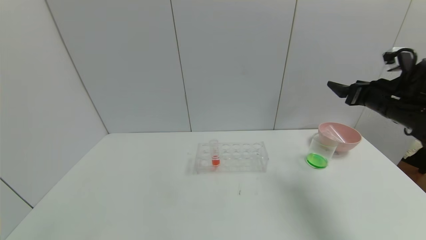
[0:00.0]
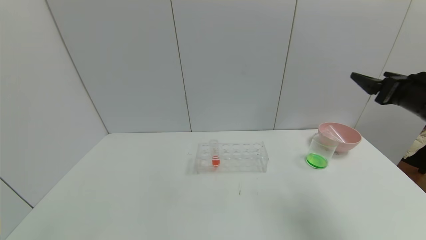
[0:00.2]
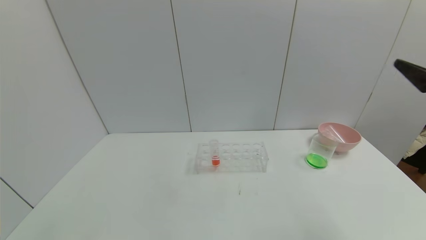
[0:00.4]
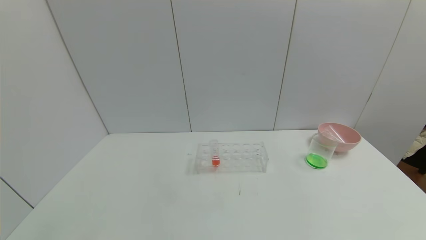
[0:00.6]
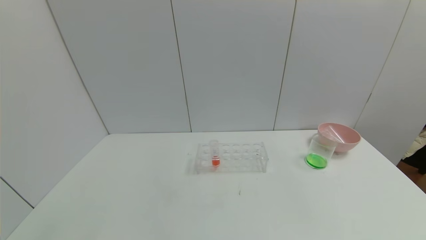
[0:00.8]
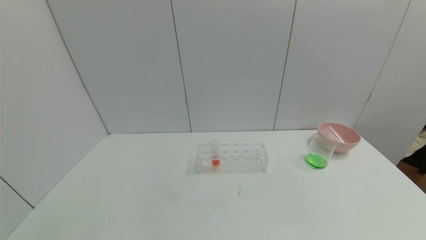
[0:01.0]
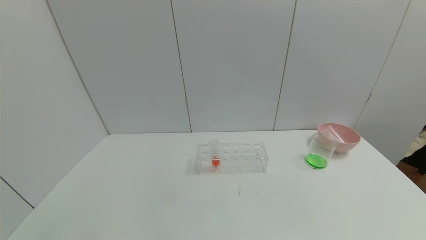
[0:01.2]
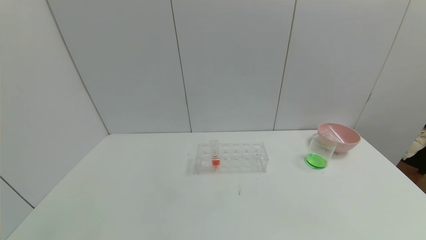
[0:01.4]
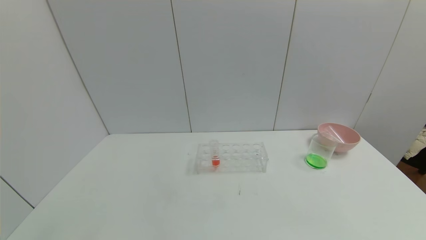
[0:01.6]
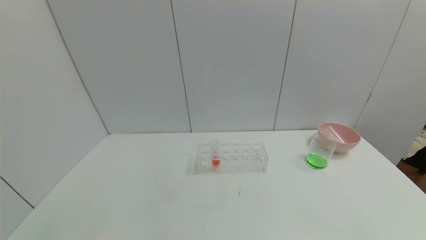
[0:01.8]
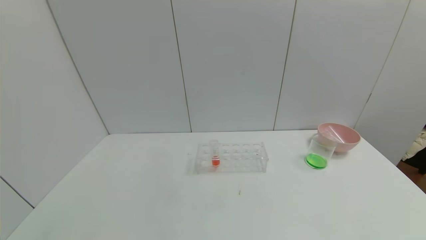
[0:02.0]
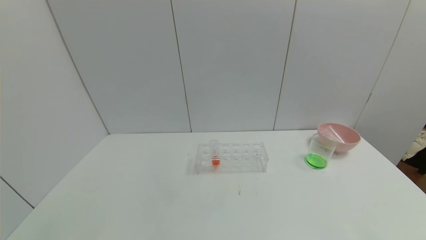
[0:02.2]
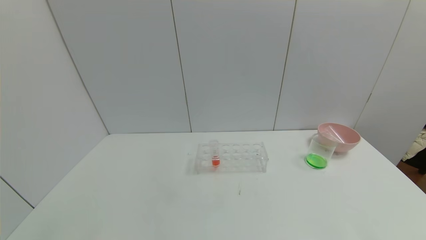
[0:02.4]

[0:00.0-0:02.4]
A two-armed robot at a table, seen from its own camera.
Task of the whole recording: pick up the test tube with yellow pigment and the test tube with blue pigment by grippers and pour them into the beaker.
0:00.0 to 0:01.2: The right gripper travels backward by some 40 cm.
